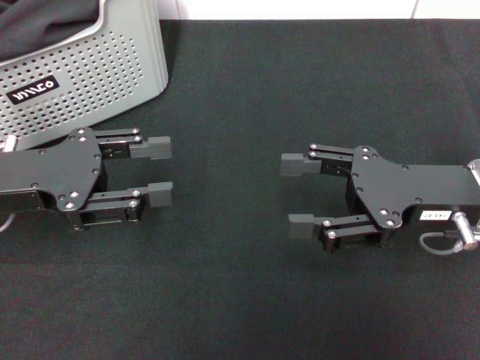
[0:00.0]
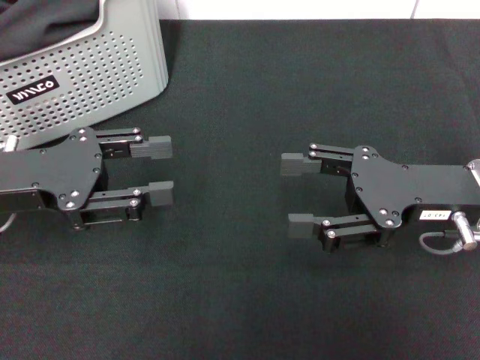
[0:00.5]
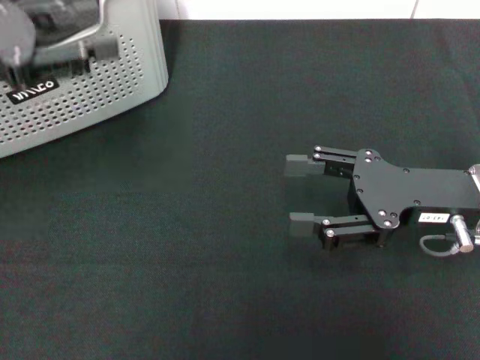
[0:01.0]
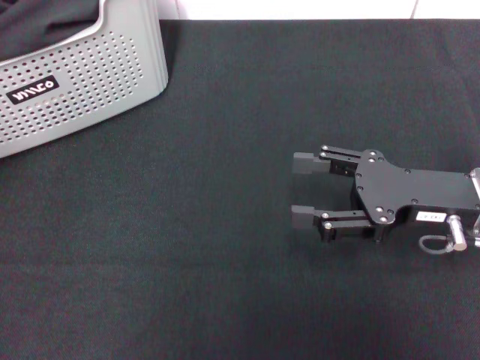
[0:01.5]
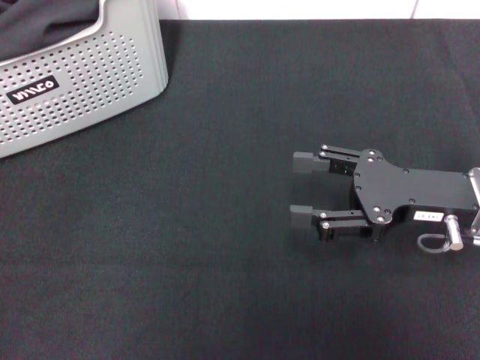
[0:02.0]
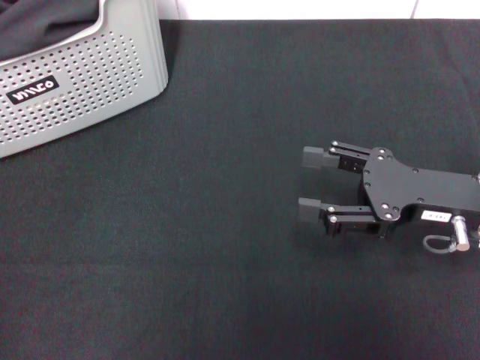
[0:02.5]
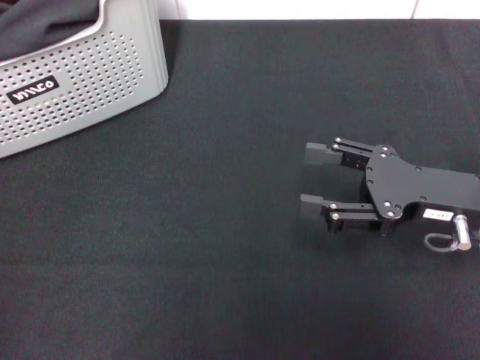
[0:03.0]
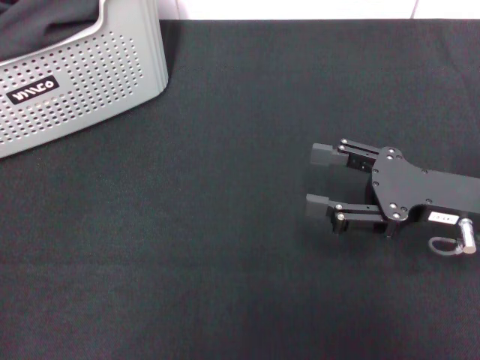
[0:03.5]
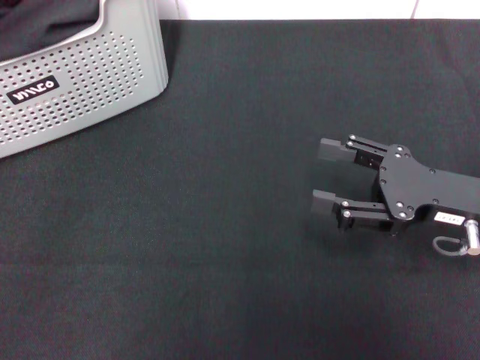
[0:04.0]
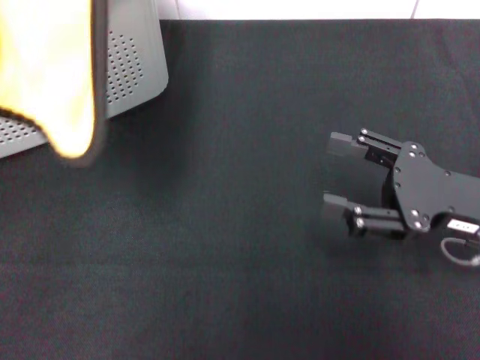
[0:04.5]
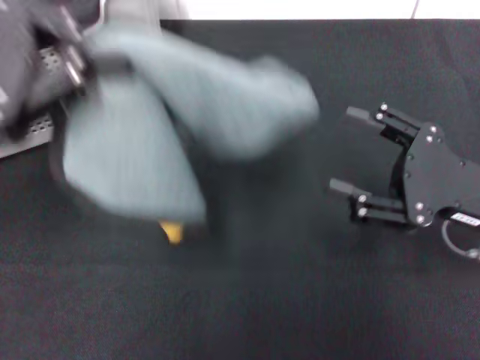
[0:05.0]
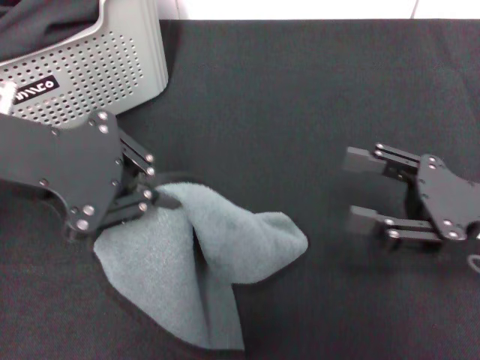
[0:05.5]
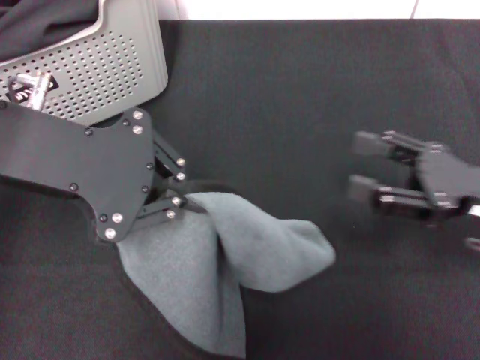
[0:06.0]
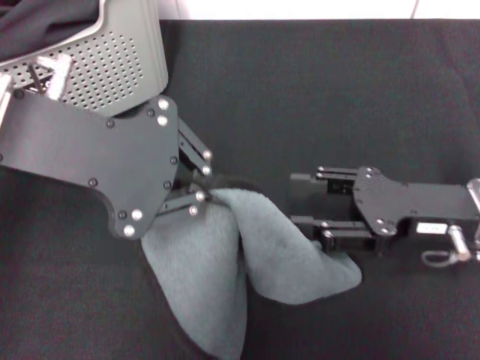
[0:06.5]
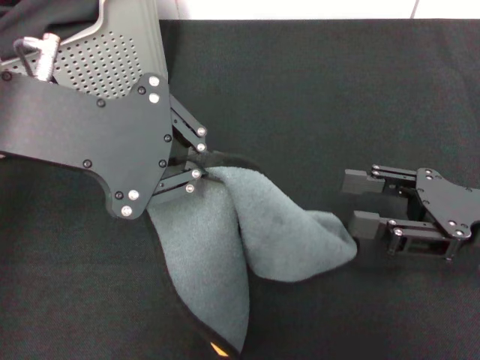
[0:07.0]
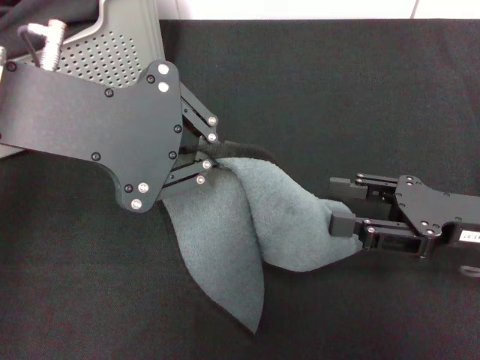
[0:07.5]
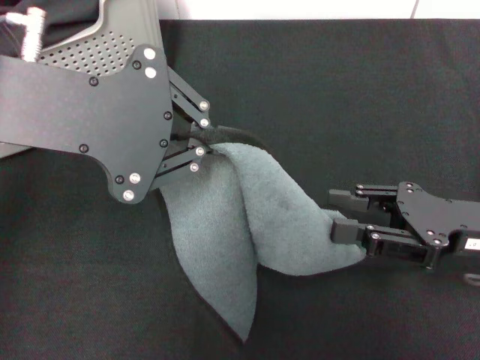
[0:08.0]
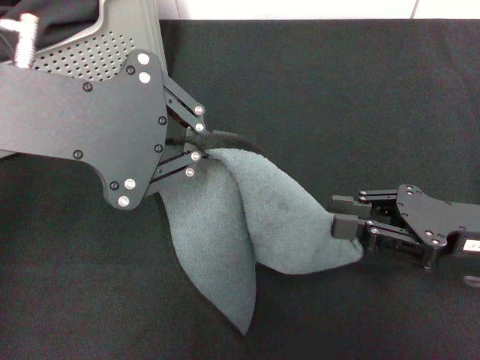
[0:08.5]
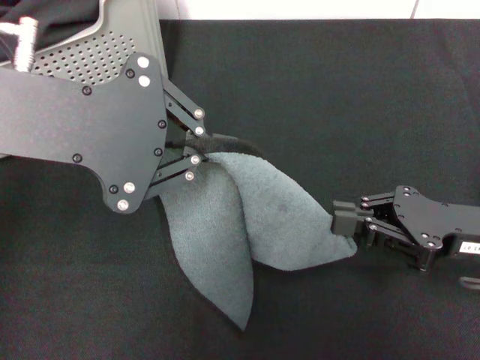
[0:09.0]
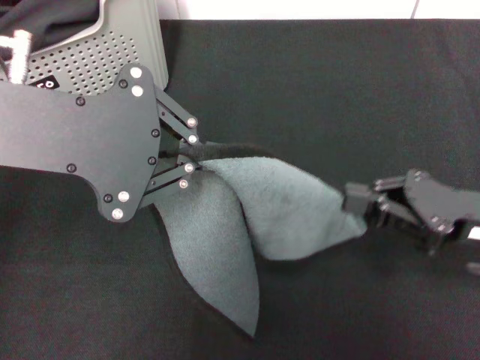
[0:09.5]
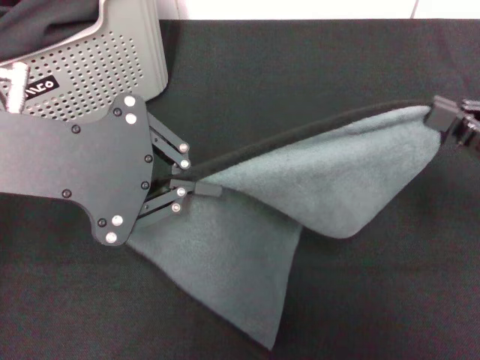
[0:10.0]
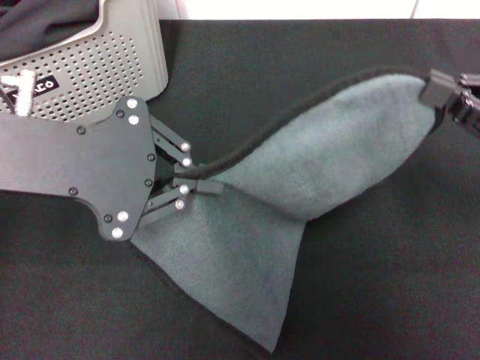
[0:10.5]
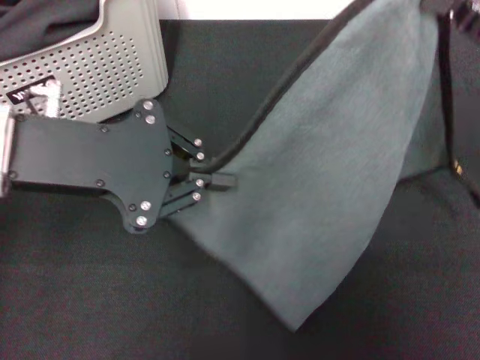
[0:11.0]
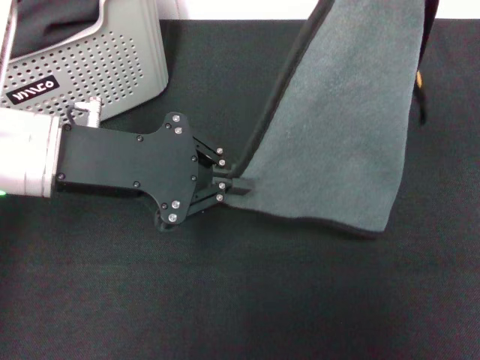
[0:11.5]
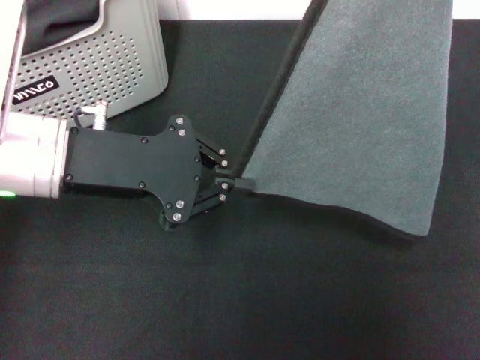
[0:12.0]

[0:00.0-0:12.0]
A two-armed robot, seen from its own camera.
Task of the whole recording: pick up the towel from the storage box and lay it flat on the black tablecloth.
Step, 0:00.0 to 0:03.0: Pick up a towel with the left gripper.
Step, 0:03.5 to 0:09.0: Spread the towel flat with the left gripper.
0:00.0 to 0:02.0: The left gripper travels upward and to the left by approximately 20 cm.
0:02.0 to 0:04.0: The left gripper closes its fingers.
0:04.0 to 0:06.0: The left gripper is displaced to the right and downward by some 15 cm.
0:08.0 to 0:10.0: The right gripper goes roughly 5 cm to the right, and closes up.
0:10.0 to 0:12.0: The right gripper goes some 15 cm upward and forward. Meanwhile the left gripper moves downward, about 10 cm.

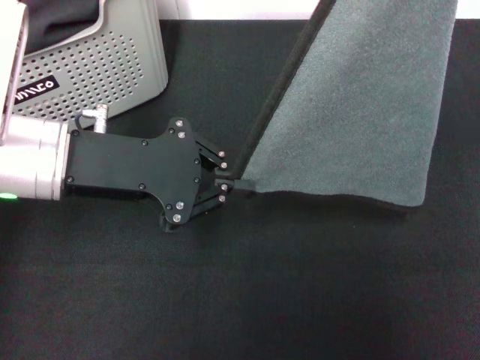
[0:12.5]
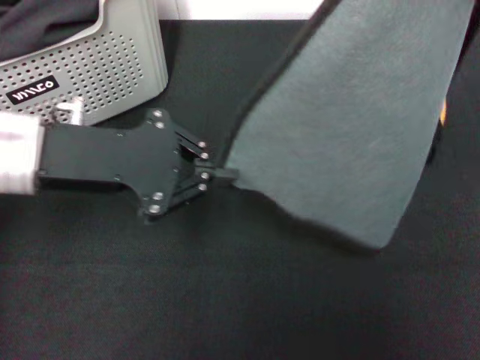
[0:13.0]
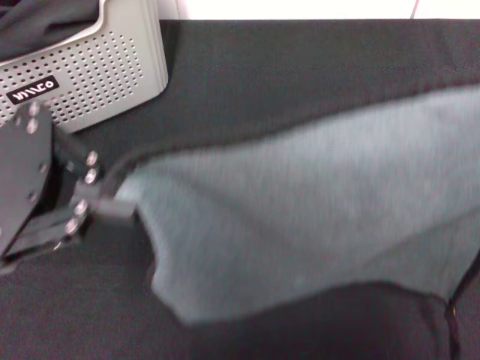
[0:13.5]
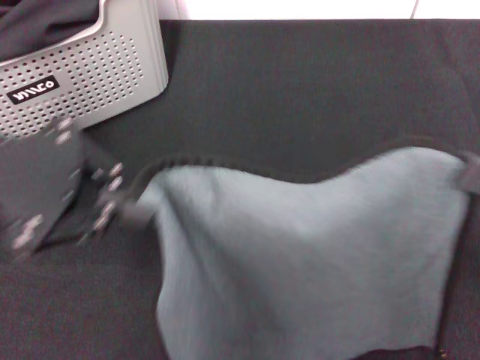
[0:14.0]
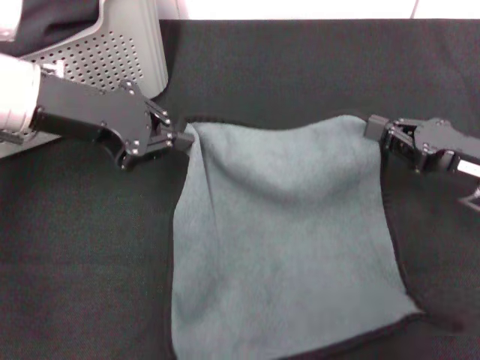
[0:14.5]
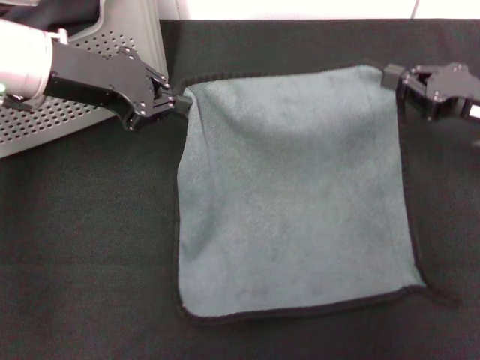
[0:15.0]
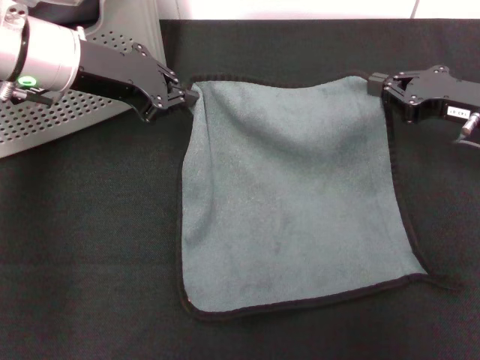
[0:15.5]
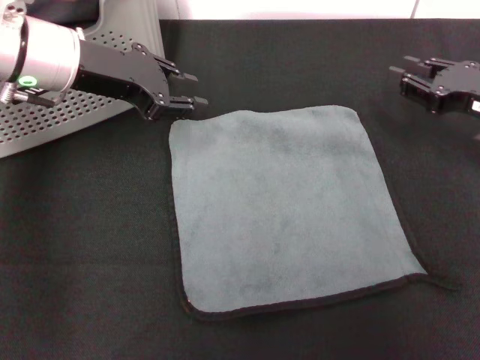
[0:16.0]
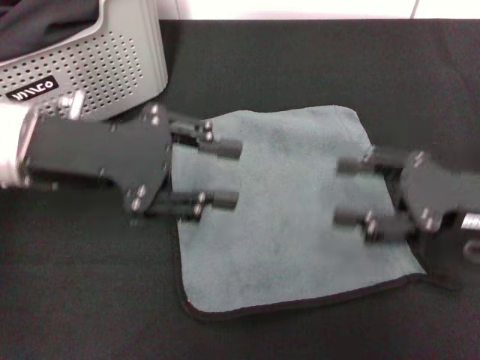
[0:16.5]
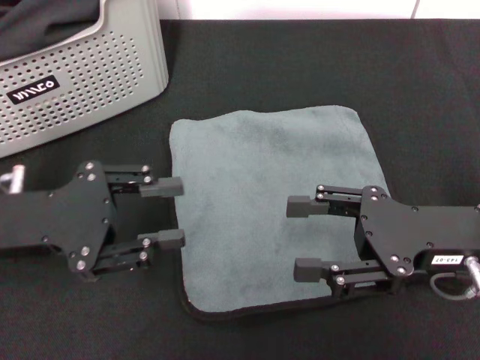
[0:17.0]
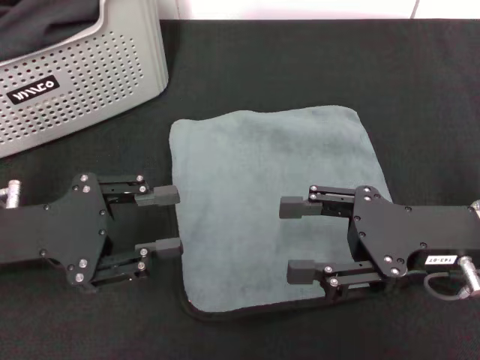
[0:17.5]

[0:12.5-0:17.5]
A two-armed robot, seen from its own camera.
Task of the whole recording: pick up the towel from the storage box and lay it flat on the black tablecloth.
Step, 0:12.5 to 0:16.0: Spread the towel flat with the right gripper.
0:12.5 to 0:15.0: The right gripper goes about 15 cm downward. Meanwhile the left gripper moves forward, about 10 cm.
0:15.0 to 0:17.5: The left gripper moves backward and downward, some 15 cm, and opens up. Meanwhile the right gripper travels backward and to the left by roughly 10 cm, and opens.
